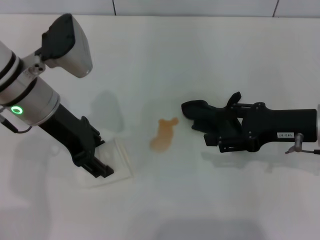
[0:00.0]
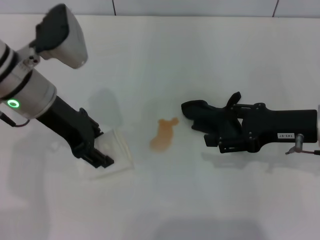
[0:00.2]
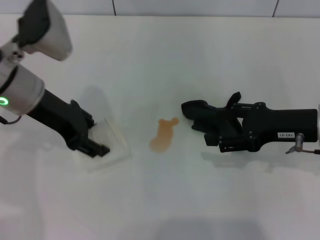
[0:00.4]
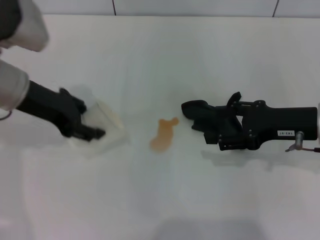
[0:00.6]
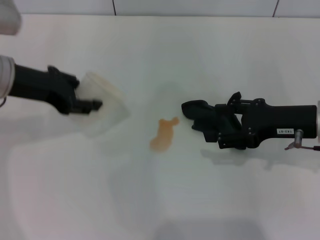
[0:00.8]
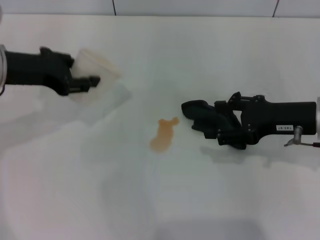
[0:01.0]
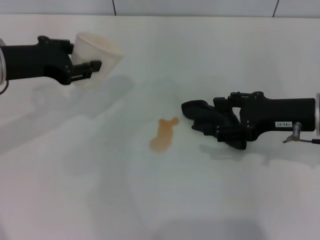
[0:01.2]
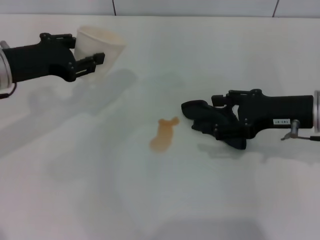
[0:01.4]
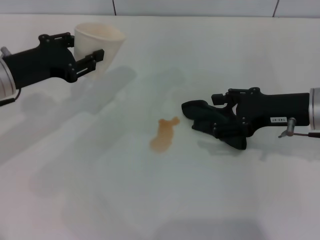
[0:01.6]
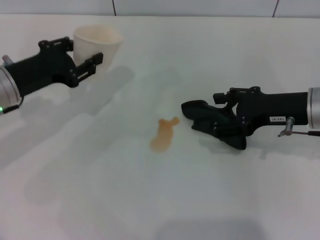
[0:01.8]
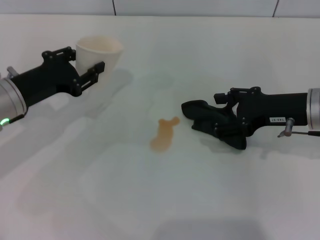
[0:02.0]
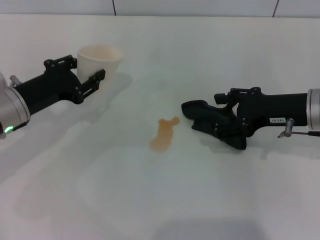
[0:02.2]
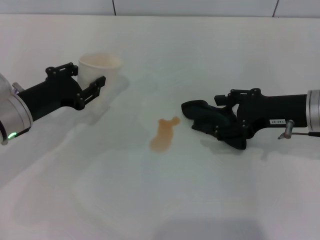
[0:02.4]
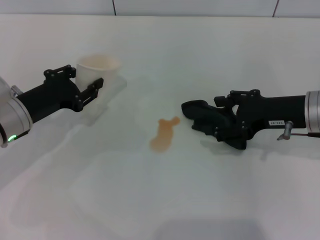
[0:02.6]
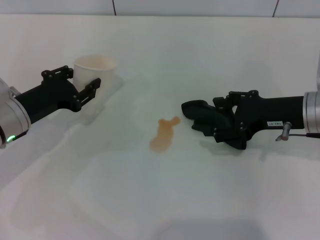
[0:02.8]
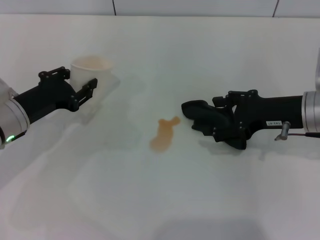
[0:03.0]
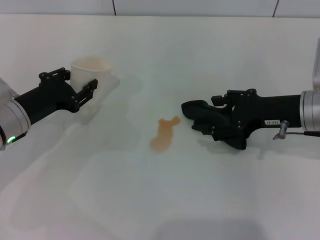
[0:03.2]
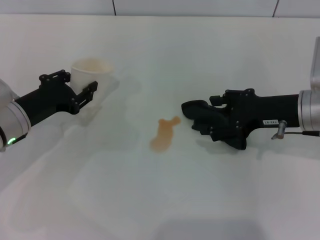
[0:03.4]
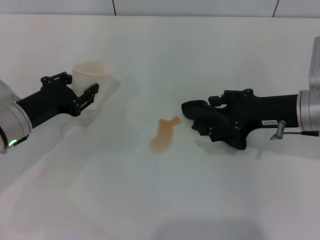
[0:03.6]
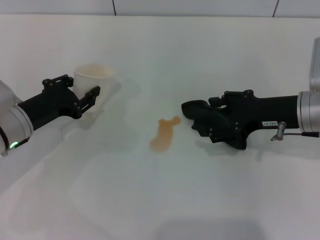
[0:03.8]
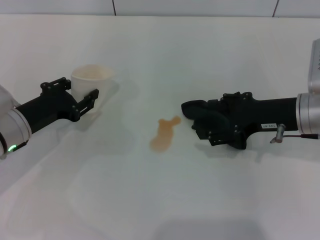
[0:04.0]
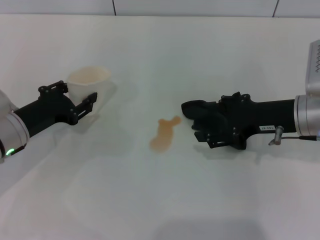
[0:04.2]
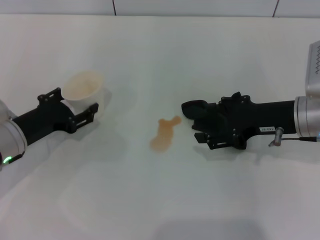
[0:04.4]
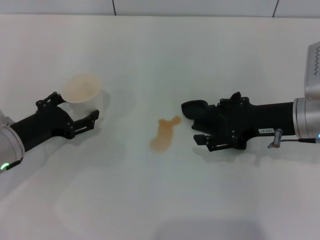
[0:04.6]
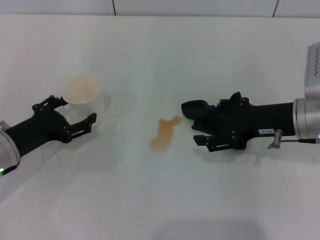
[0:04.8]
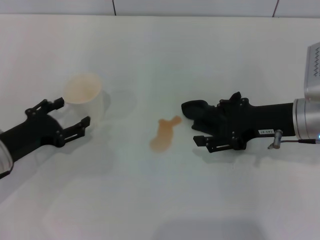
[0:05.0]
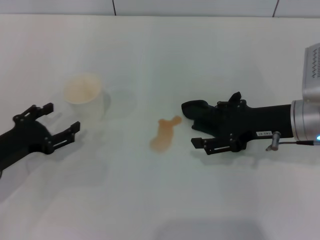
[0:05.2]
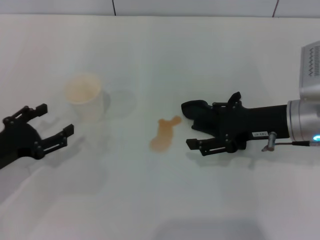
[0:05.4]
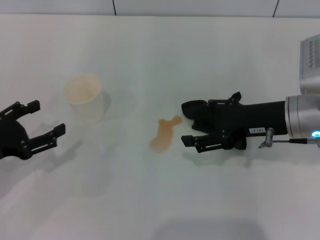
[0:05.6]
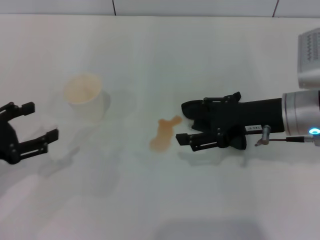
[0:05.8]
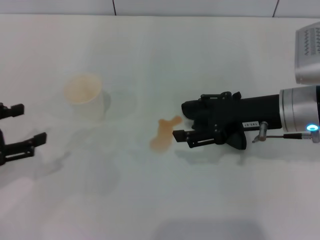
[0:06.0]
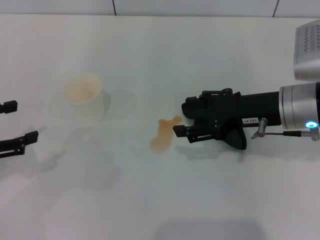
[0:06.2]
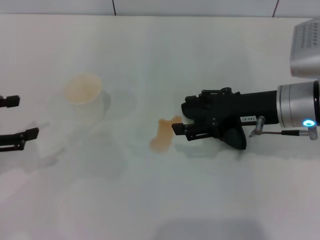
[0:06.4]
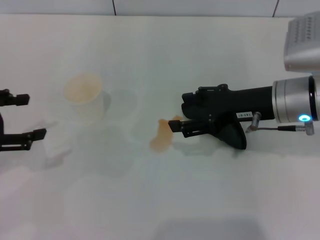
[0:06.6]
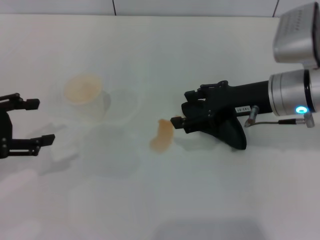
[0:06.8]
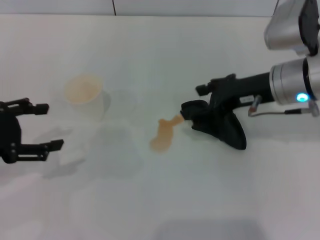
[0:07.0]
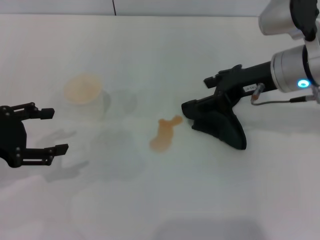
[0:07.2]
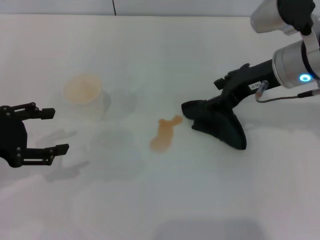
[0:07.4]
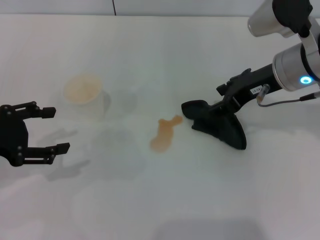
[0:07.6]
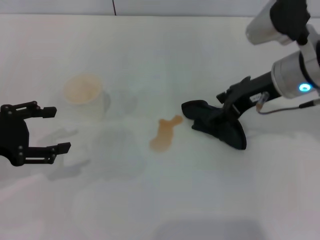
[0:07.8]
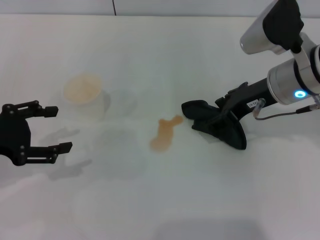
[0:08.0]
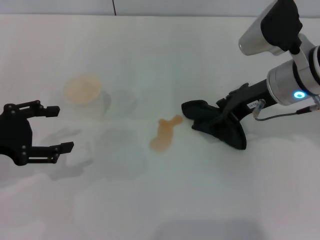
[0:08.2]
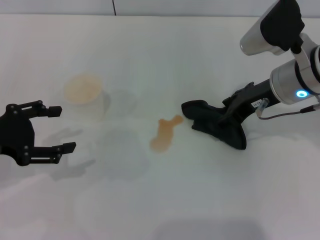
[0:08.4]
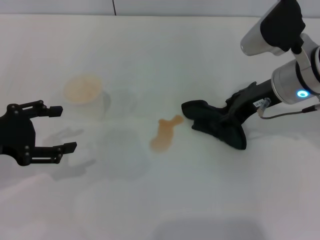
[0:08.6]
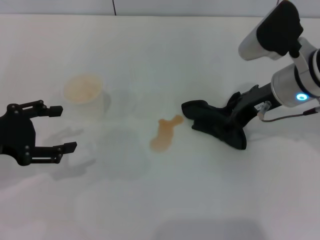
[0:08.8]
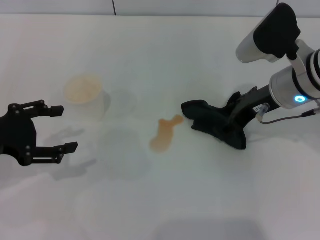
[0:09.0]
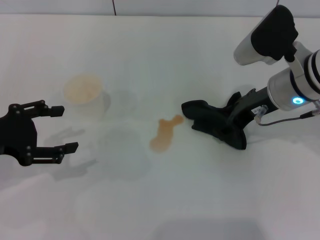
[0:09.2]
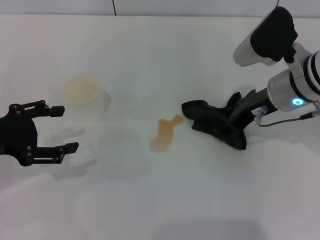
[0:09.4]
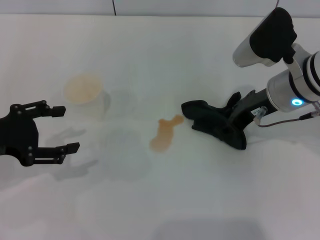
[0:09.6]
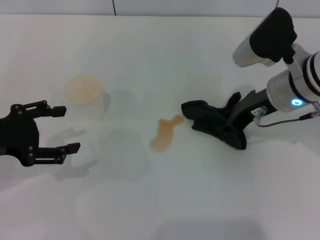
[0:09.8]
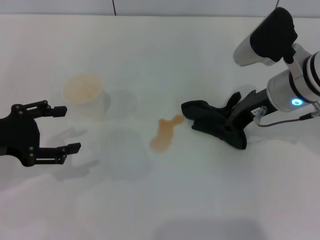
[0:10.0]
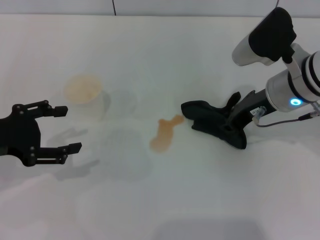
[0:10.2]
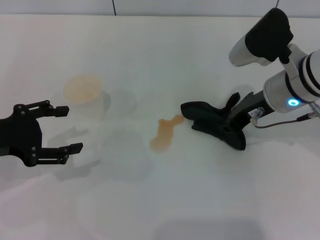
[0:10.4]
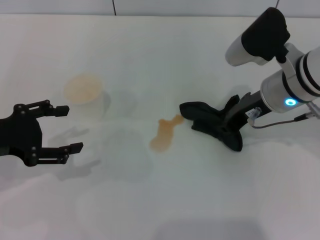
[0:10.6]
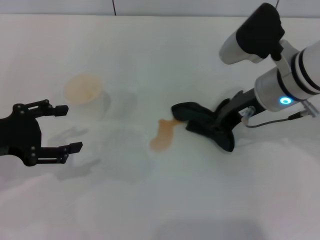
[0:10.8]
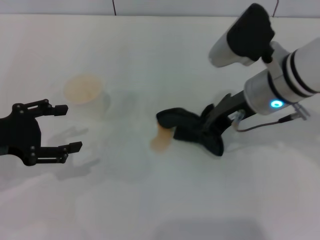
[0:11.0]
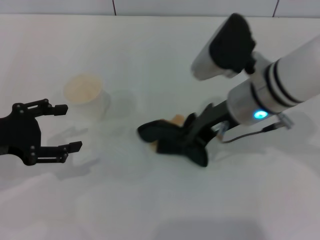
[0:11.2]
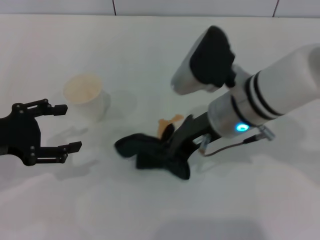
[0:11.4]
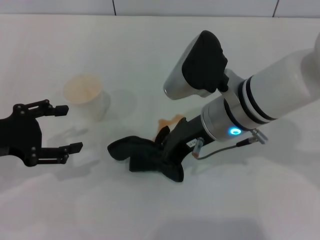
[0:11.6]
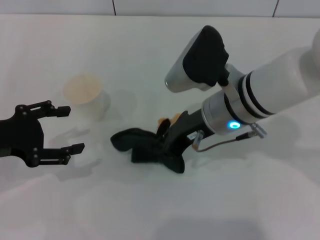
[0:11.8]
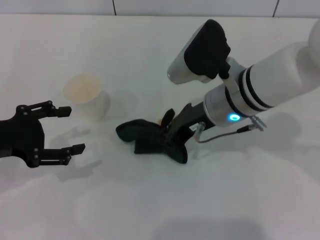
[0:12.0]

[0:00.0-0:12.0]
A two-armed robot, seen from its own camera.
Step, 0:00.0 to 0:04.6: Stand the paper cup upright with the left gripper.
Step, 0:05.0 to 0:10.4: Grasp the rag with the right gripper.
0:00.0 to 0:01.6: The left gripper goes about 10 cm to the left, and closes its fingers.
0:01.6 to 0:03.0: The left gripper shifts some 5 cm downward.
0:03.0 to 0:04.4: The grippers stay close to where they were, moving slightly.
0:04.4 to 0:06.0: The left gripper is displaced upward, to the left and backward by approximately 15 cm, and opens its fingers.
0:06.0 to 0:07.6: The right gripper shifts some 5 cm forward.
0:07.6 to 0:09.0: The grippers stay close to where they were, moving slightly.
0:09.0 to 0:10.4: The right gripper closes its fingers.
0:10.4 to 0:12.0: The right gripper is displaced to the left by about 10 cm.

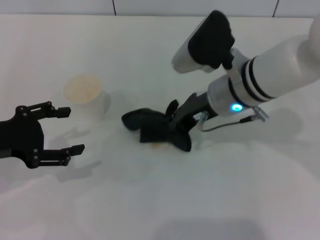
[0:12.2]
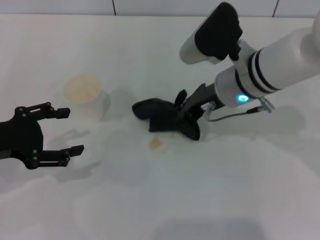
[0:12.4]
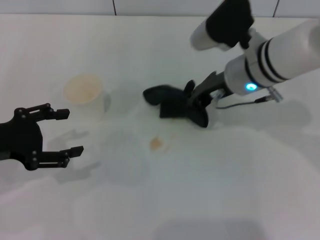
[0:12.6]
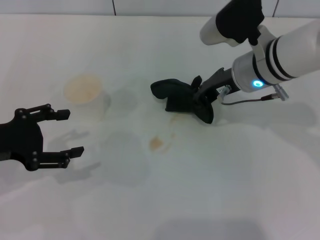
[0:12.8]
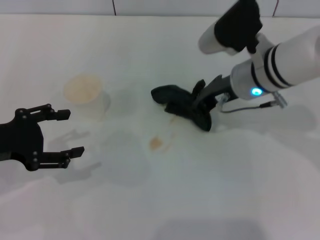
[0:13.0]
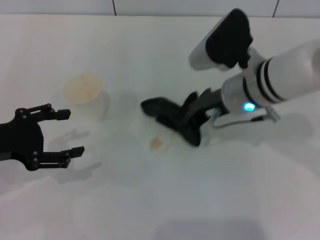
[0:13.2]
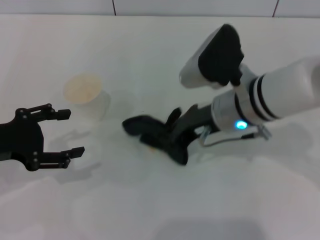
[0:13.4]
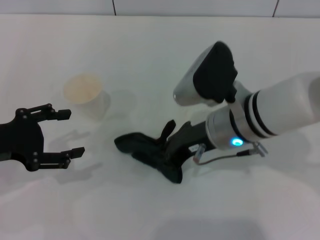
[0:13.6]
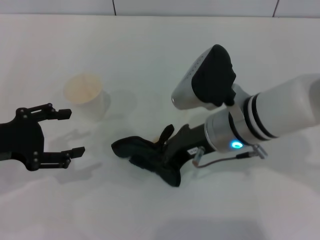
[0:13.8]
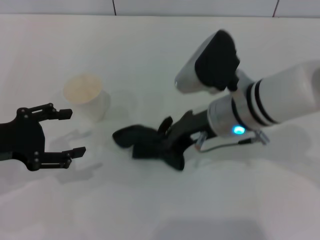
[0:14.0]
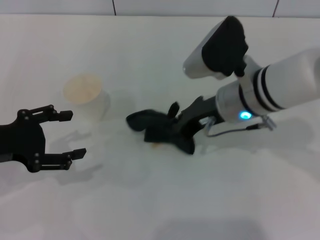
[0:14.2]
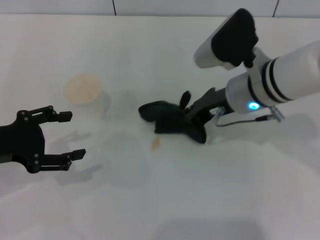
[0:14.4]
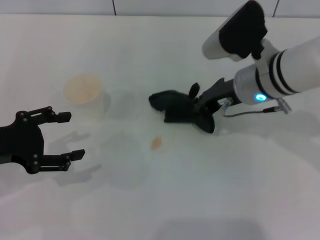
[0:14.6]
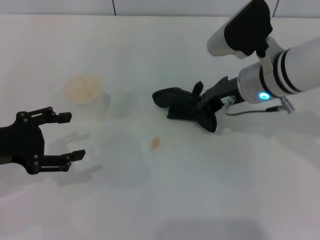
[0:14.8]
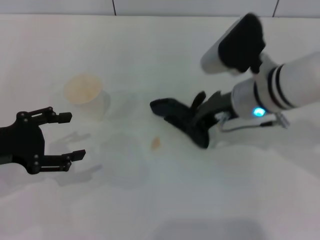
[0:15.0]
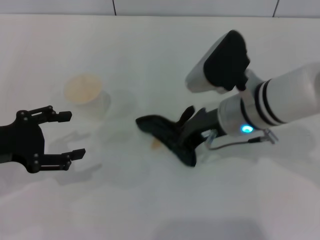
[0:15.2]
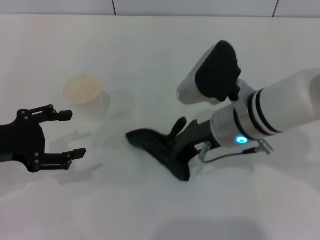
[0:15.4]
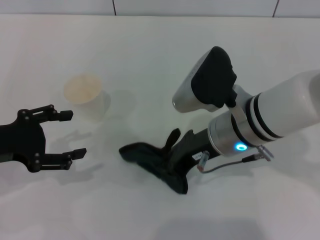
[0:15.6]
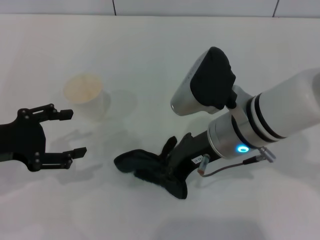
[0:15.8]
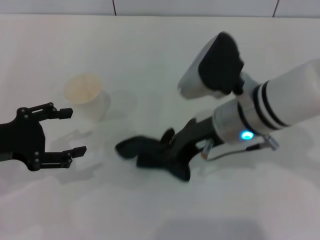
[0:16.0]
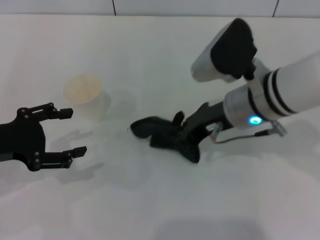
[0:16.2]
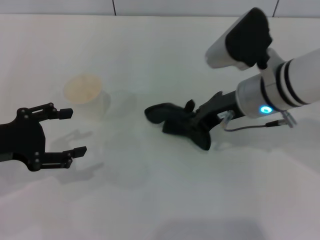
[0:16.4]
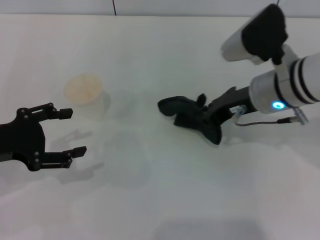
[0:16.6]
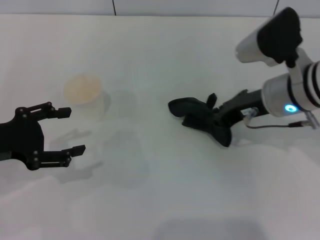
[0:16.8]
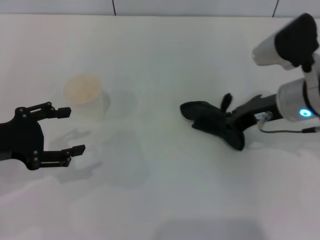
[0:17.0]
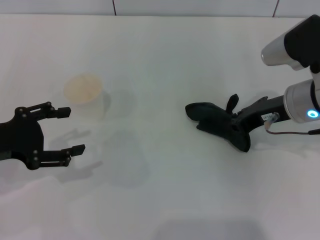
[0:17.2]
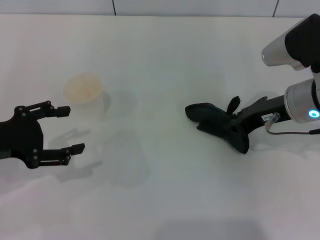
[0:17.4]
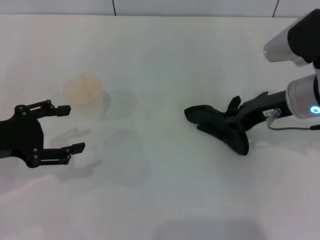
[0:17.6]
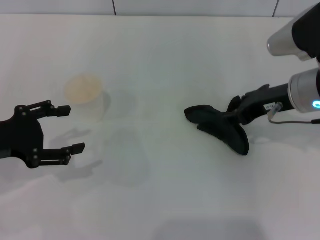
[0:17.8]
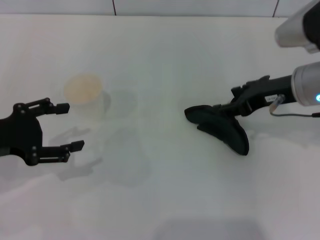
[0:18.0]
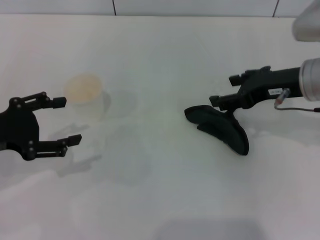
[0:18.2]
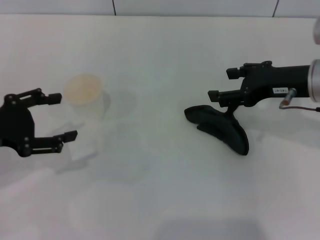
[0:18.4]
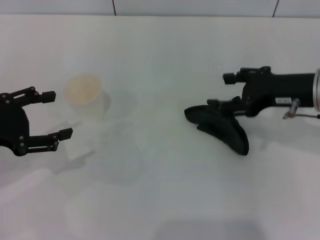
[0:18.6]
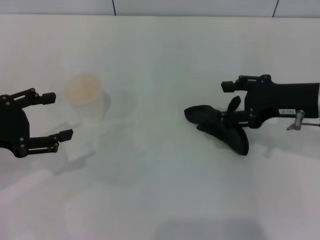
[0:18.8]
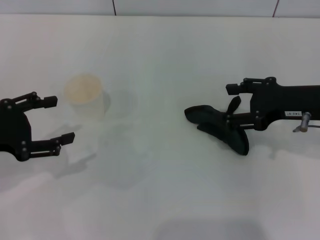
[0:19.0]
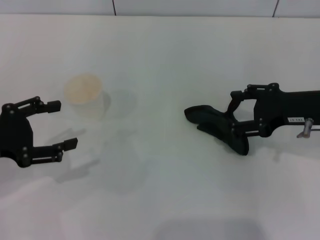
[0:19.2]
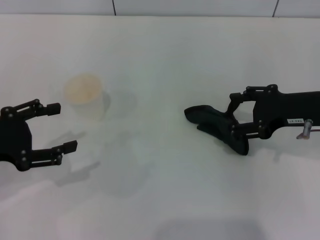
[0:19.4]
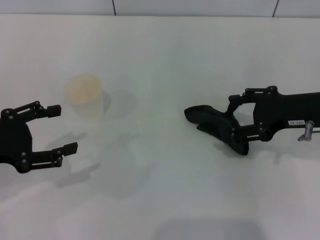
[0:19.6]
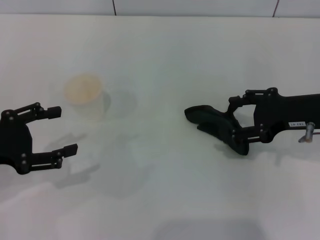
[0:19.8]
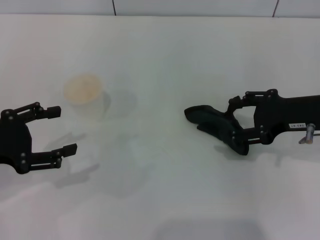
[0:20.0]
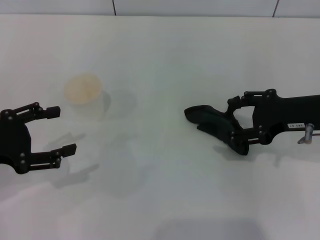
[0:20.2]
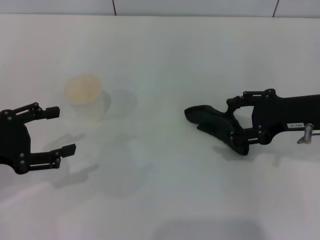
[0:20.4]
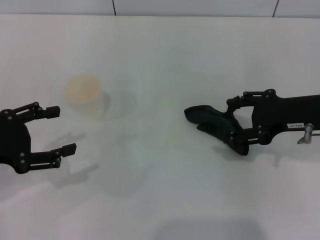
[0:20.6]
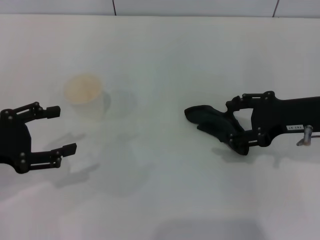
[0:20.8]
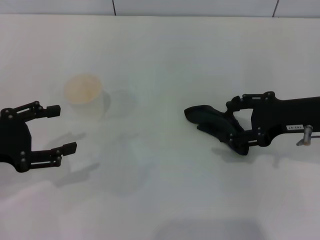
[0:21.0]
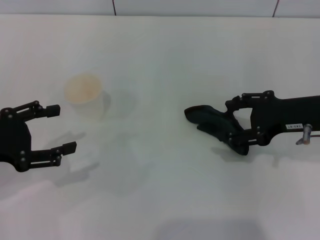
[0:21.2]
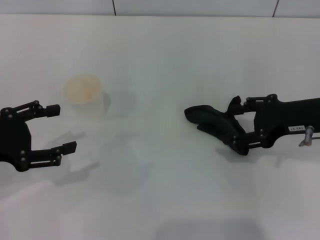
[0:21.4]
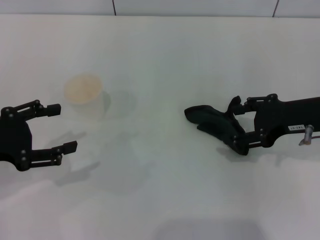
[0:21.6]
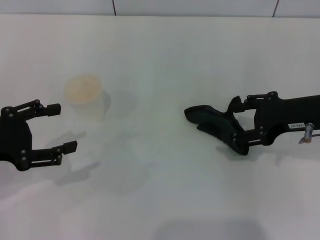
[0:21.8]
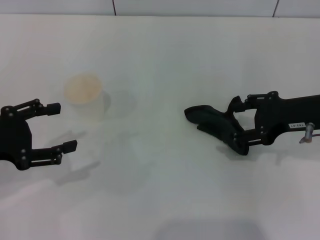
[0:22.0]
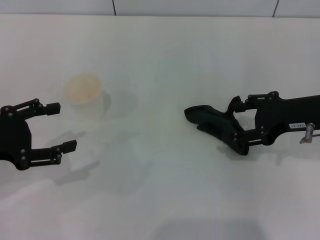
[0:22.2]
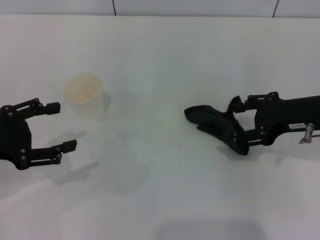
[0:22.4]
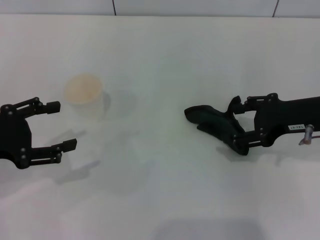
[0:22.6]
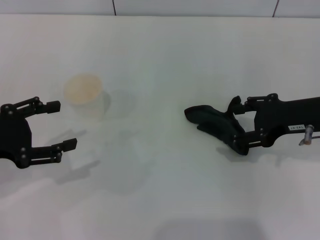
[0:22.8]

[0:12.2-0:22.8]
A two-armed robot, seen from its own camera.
Step, 0:12.2 to 0:17.0: Wipe the stains off the table with the right gripper.
Step, 0:17.2 to 0:18.0: Place the rag on the table with the right gripper.
0:12.2 to 0:13.8: The right gripper moves some 5 cm.
0:15.2 to 0:16.8: The right gripper shifts some 5 cm to the right.
0:16.8 to 0:18.2: The right gripper changes place by about 5 cm, and opens.
0:18.2 to 0:19.8: The right gripper ends up roughly 5 cm from where it was.
0:19.8 to 0:21.2: Both grippers stay about where they are.
0:21.2 to 0:22.8: Neither gripper changes place.
